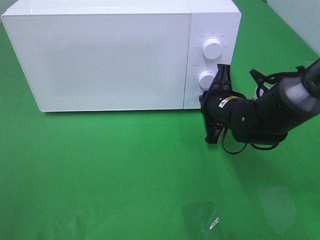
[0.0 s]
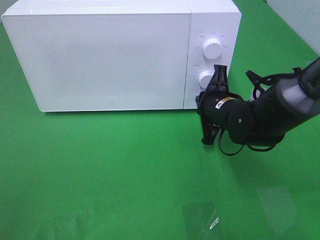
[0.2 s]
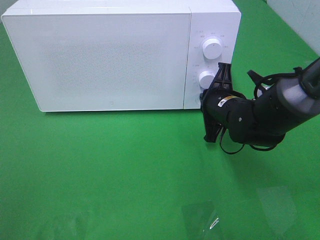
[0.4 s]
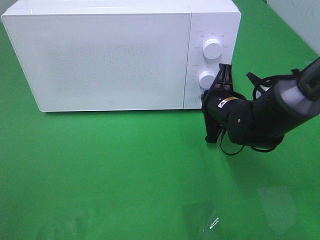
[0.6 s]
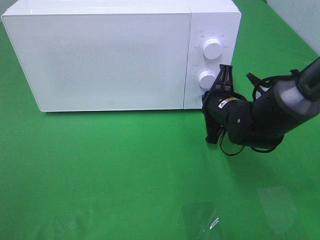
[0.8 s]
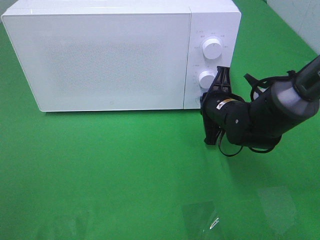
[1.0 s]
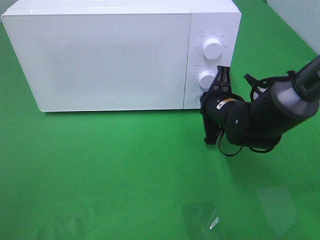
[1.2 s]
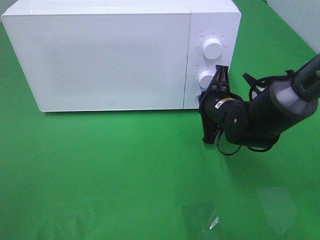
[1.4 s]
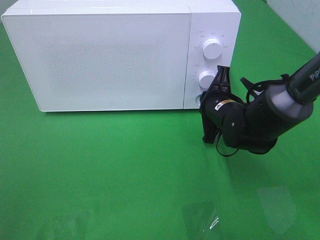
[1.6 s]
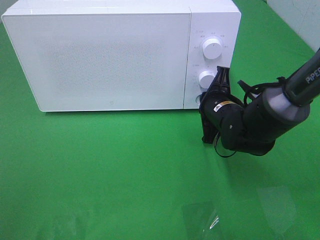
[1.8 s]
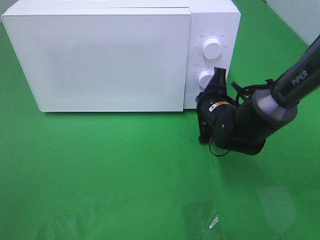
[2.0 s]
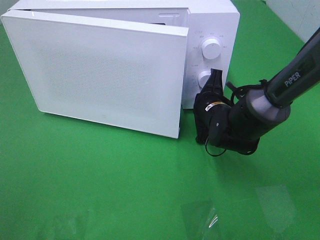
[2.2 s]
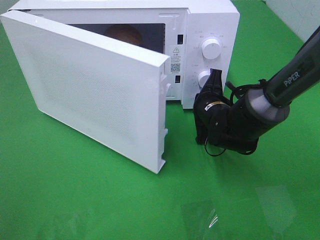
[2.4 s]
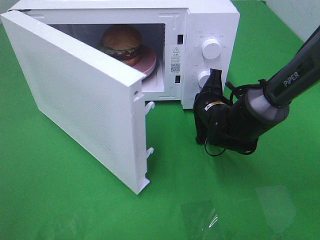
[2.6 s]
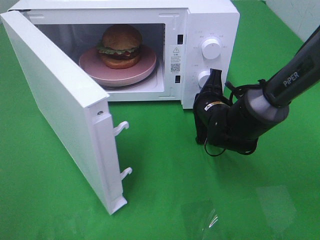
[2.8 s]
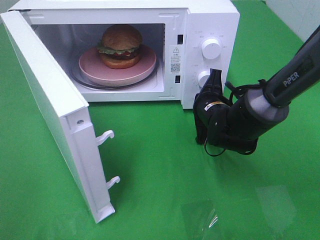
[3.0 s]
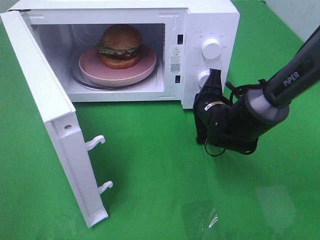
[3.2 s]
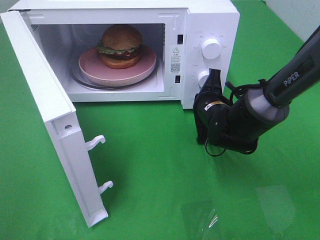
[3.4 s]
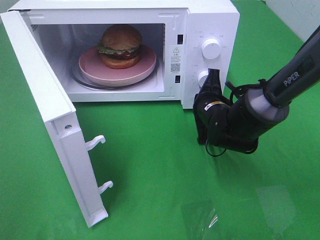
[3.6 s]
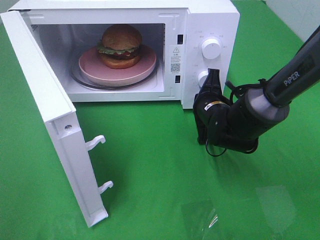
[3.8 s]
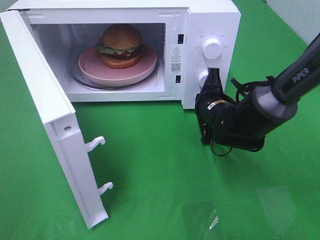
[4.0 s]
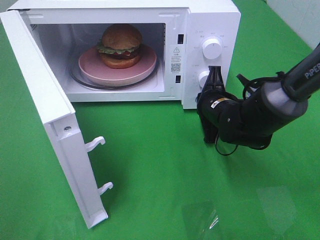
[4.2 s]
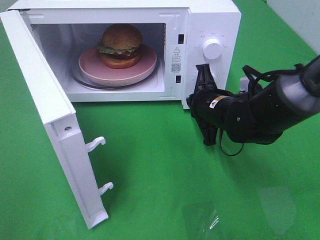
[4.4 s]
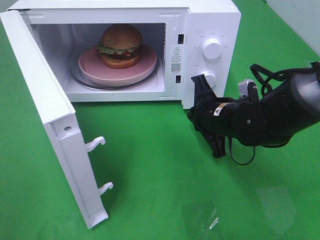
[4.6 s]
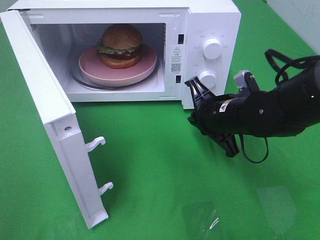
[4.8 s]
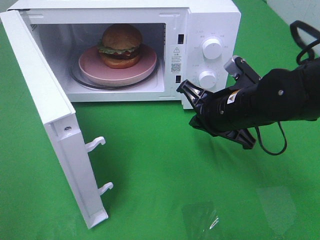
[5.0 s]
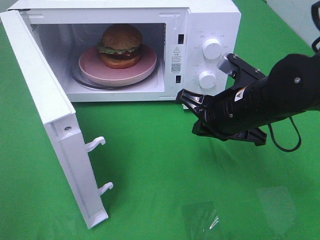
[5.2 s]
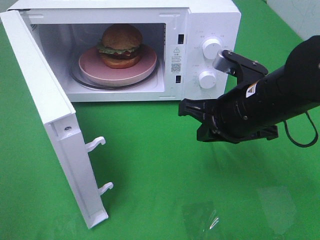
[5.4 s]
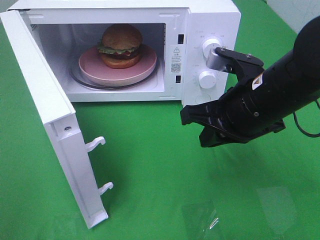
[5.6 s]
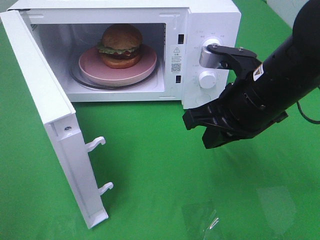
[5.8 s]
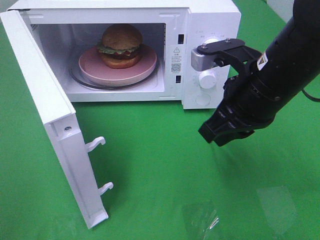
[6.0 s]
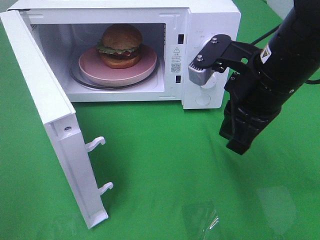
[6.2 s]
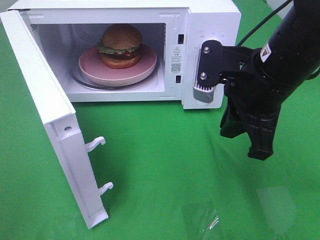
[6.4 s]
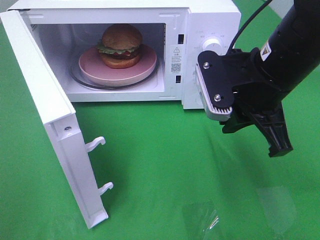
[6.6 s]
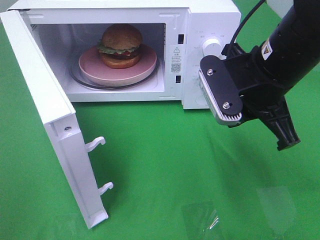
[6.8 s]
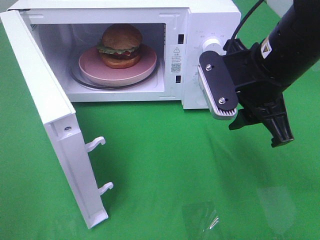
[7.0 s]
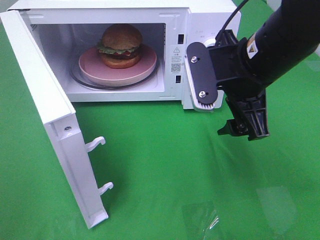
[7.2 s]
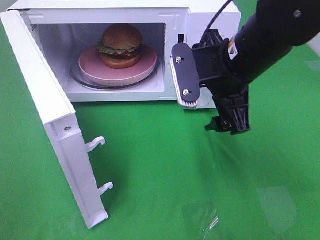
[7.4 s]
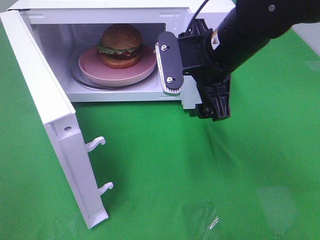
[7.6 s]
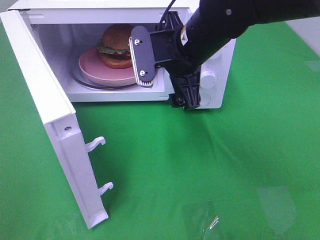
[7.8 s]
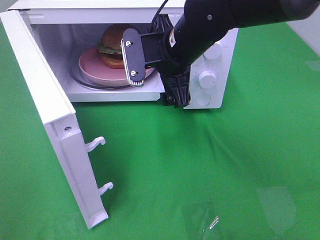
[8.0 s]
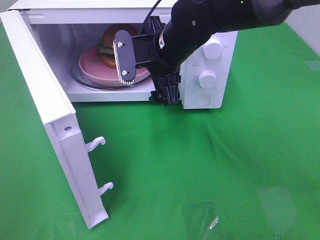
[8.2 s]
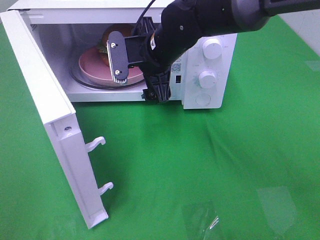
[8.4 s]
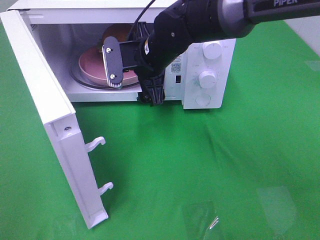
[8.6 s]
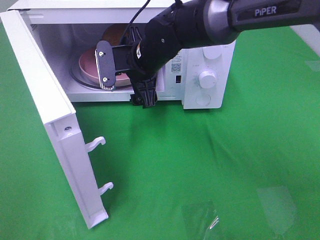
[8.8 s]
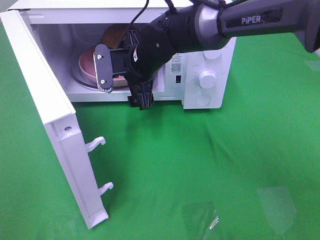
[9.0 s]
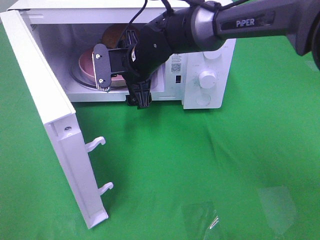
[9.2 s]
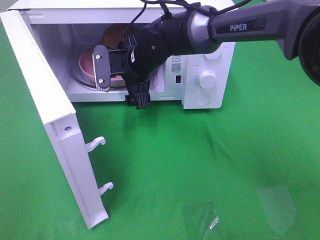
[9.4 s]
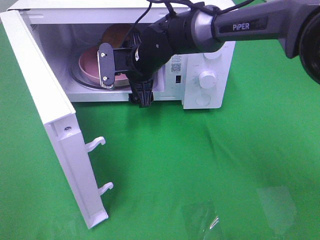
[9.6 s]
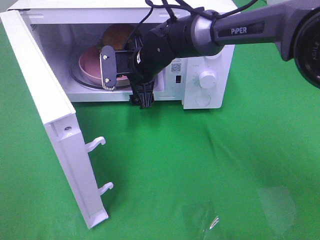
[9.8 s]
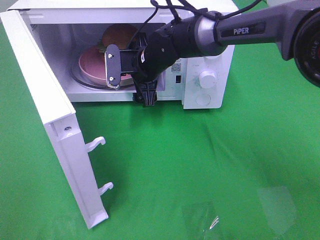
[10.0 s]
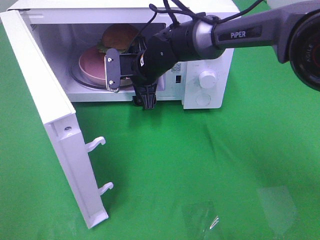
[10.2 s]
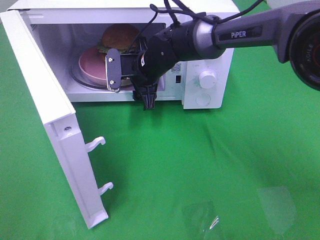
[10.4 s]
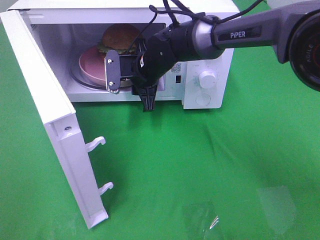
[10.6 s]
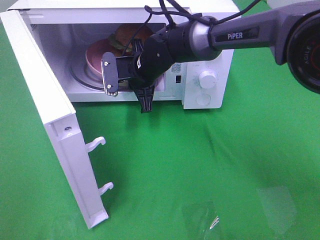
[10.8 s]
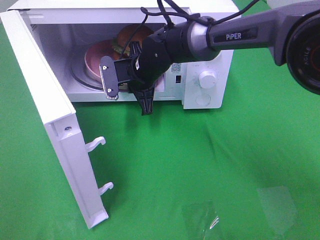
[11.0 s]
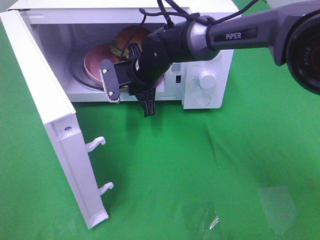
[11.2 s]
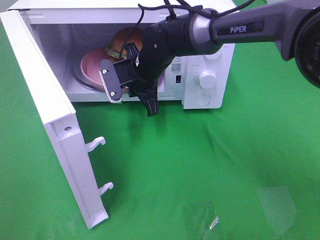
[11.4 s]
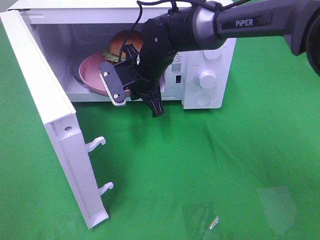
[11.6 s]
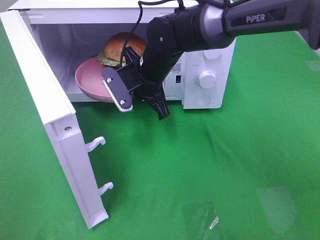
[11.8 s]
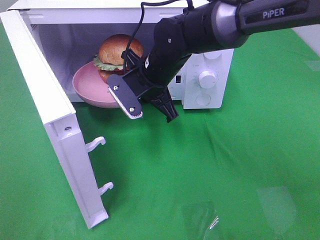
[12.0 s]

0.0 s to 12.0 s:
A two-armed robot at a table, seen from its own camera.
Task of the whole recording: Heat the burger.
Step, 0.0 to 4.2 s: Right hand: press the switch.
Step, 4.4 to 10.6 s: Right hand: grab the plate with the hamburger.
0.0 to 1.6 s: The grippers stay close to where they were, moving slightly.
4.4 to 6.0 s: The right gripper heads upward and backward, covering approximately 15 cm.
6.0 to 7.6 s: The right gripper is displaced forward by roughly 5 cm, and opens.
7.6 to 9.0 s: The right gripper travels to the left, forward and downward by roughly 15 cm.
9.0 to 10.4 s: The grippers make only small movements.
10.4 to 12.0 s: The right gripper is displaced backward by roughly 5 cm, and closes up.

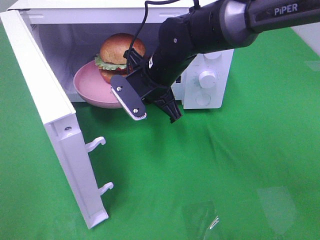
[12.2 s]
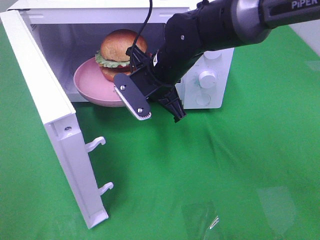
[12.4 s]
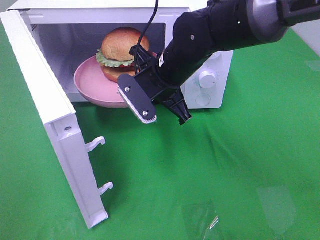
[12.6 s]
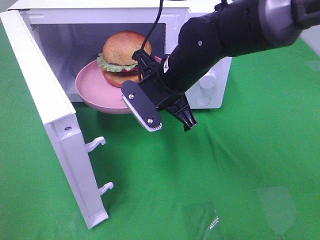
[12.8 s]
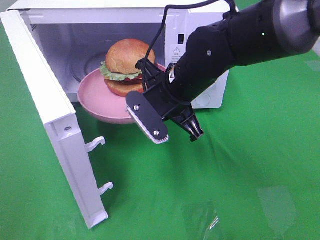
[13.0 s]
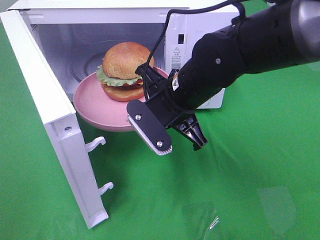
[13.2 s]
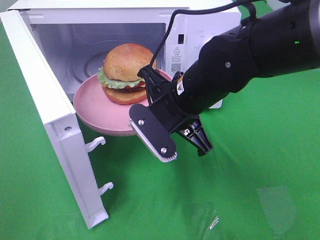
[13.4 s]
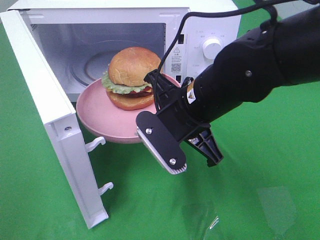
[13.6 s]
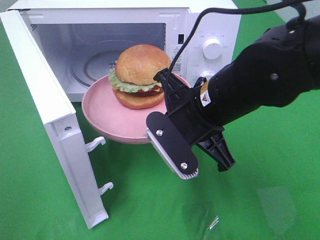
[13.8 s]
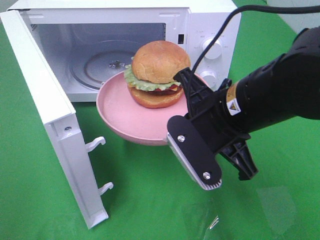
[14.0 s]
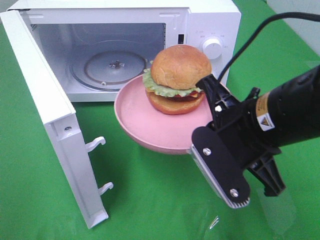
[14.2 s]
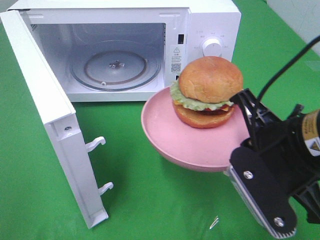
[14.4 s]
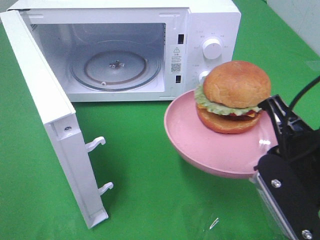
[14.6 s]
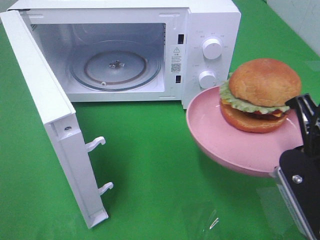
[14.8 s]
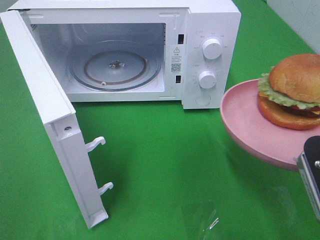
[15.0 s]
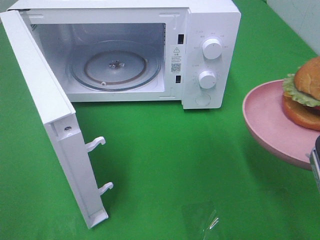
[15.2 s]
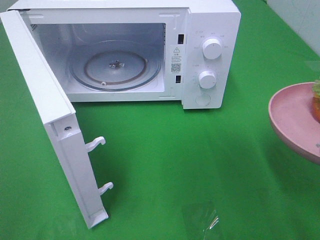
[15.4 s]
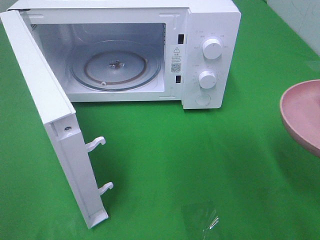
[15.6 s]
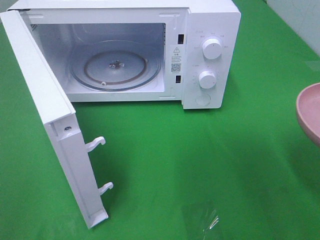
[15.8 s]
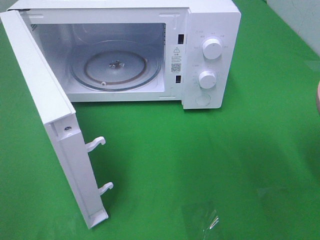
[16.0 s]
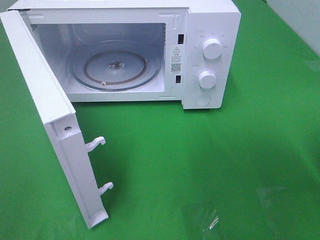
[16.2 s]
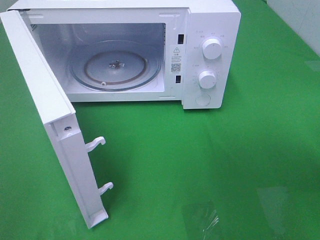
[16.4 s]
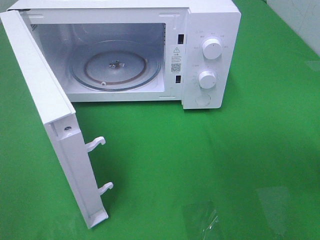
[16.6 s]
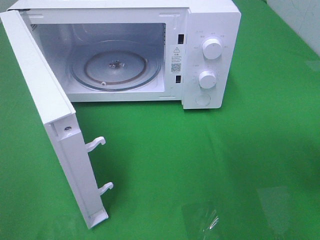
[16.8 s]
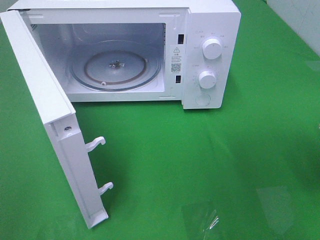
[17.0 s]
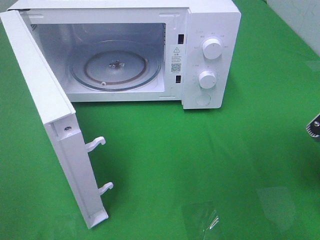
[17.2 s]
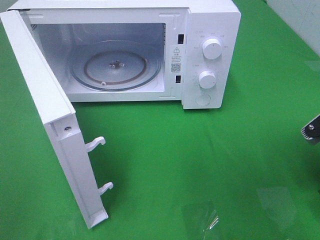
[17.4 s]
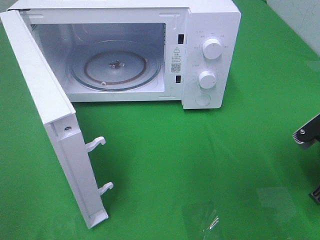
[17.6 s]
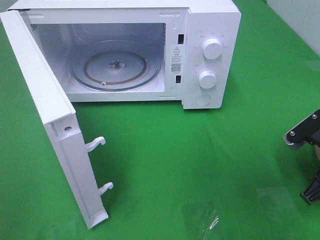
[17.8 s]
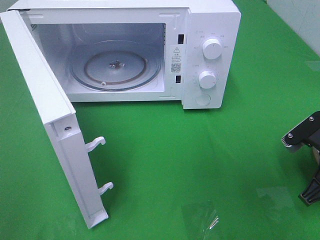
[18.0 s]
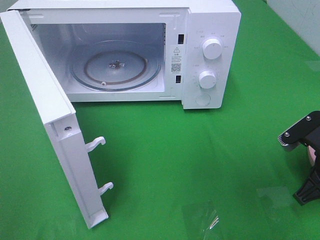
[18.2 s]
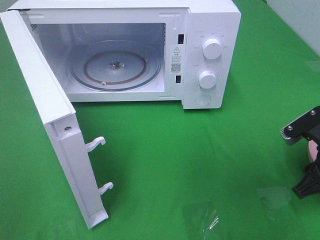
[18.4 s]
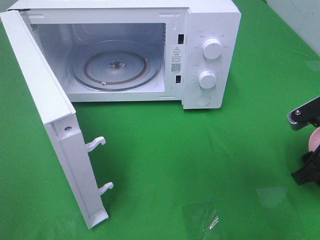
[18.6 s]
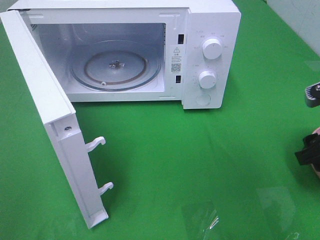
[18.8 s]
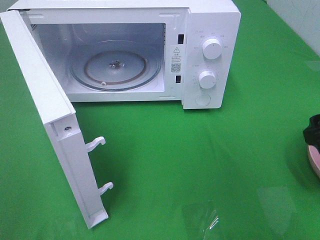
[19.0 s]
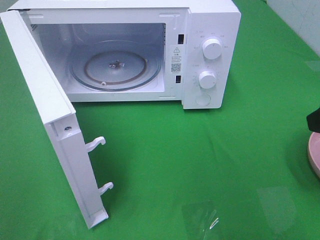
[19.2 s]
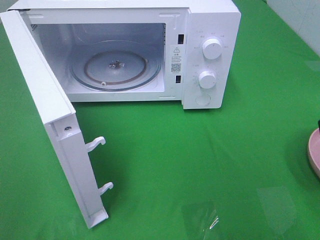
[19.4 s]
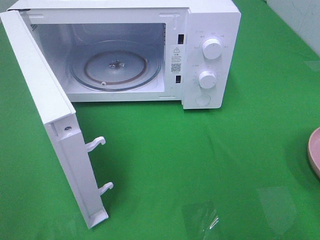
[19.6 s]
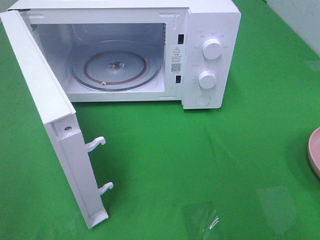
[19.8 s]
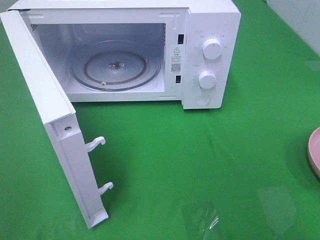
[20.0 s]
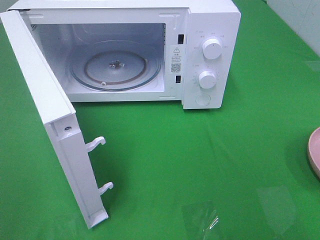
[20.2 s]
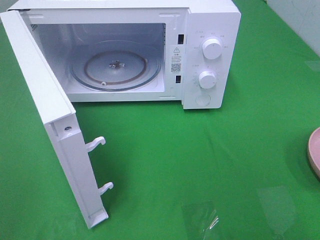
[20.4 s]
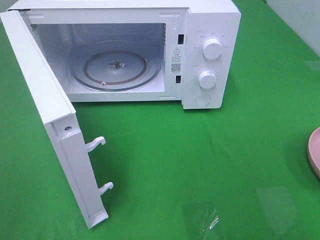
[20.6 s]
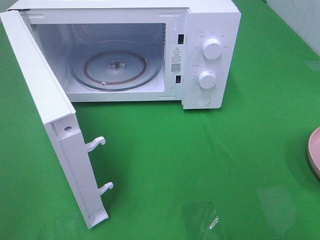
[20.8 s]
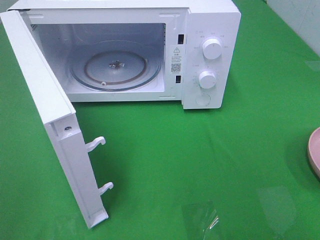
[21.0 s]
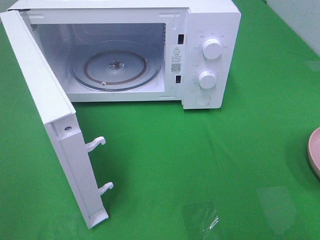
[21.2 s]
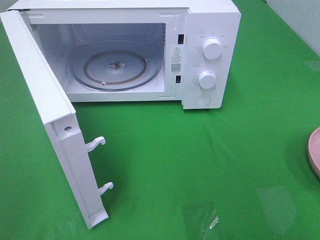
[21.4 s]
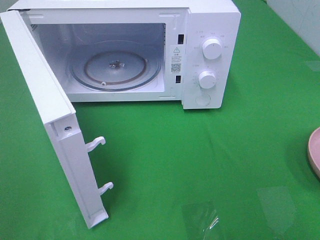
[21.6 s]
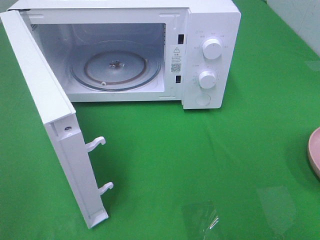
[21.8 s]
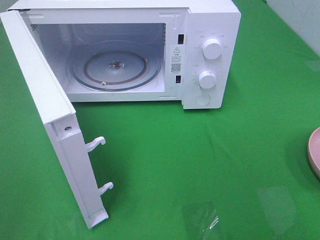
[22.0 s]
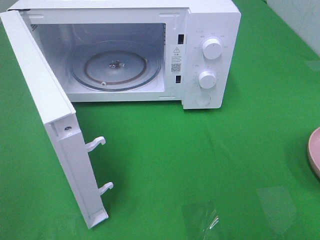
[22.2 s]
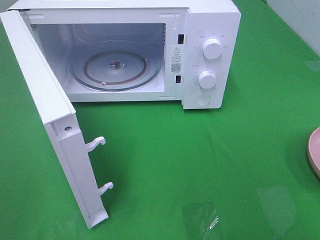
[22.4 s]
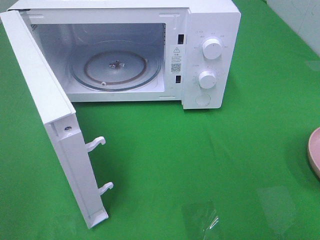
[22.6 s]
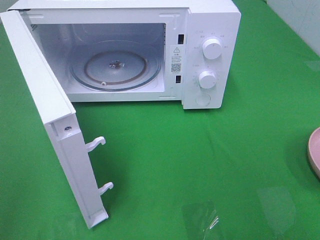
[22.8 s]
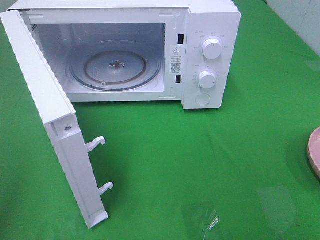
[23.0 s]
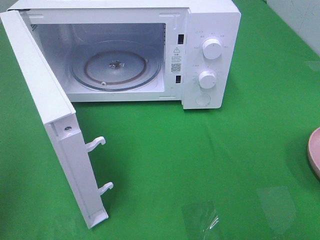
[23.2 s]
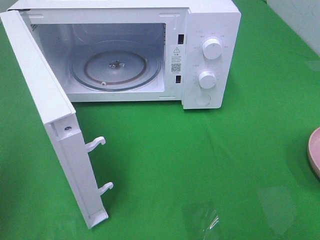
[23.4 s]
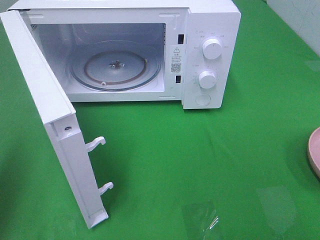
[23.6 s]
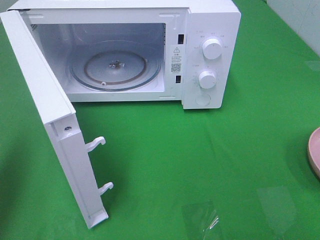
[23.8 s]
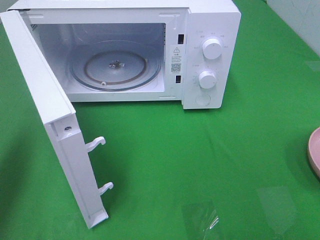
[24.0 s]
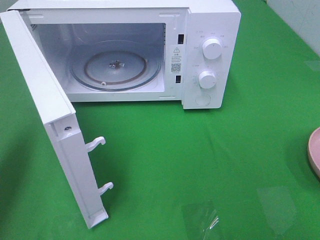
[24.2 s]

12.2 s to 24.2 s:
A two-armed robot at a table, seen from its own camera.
Task of the whole recording: Heat the burger.
Step, 12.2 to 18.2 s: Right hand: place the plate on the table.
12.2 to 13.8 s: The right gripper moves backward and to the right, approximately 15 cm.
13.8 to 15.2 s: The right gripper is displaced to the right and backward by approximately 20 cm.
15.2 to 16.6 s: The right gripper is displaced to the right by roughly 5 cm.
16.6 to 18.2 s: The right gripper moves downward and forward, roughly 15 cm.
18.2 to 19.8 s: The right gripper goes roughly 25 cm upward and backward, and opens.
22.6 to 24.2 s: The left gripper travels forward by some 25 cm, and closes up.
